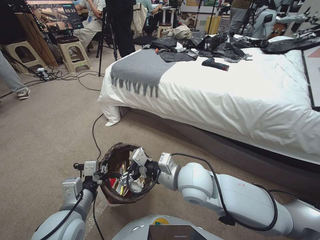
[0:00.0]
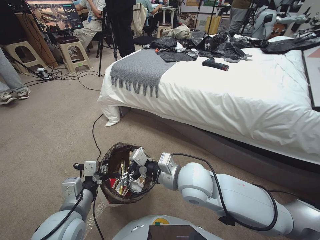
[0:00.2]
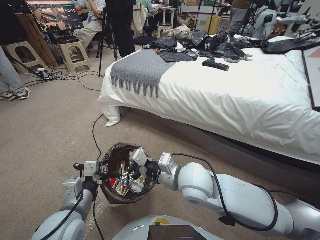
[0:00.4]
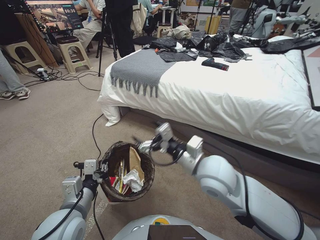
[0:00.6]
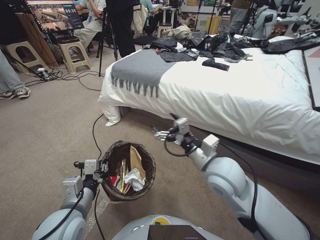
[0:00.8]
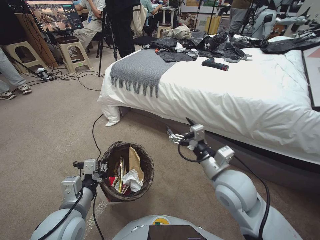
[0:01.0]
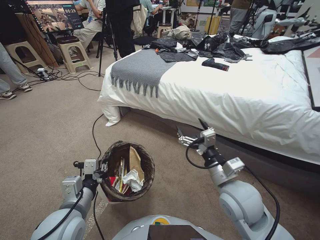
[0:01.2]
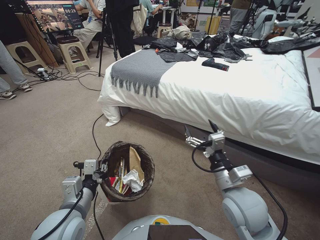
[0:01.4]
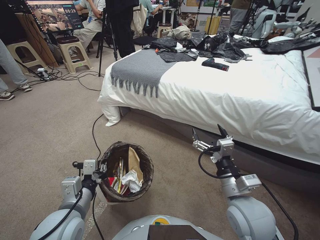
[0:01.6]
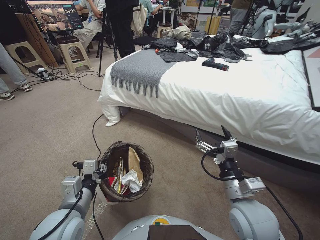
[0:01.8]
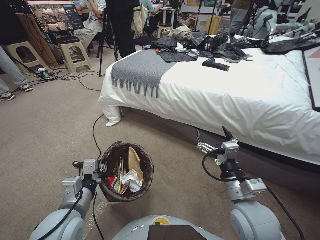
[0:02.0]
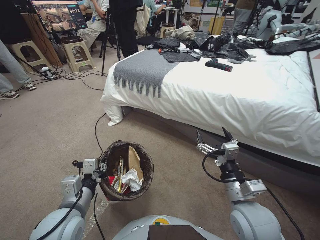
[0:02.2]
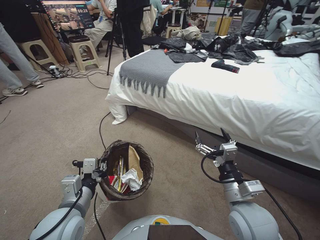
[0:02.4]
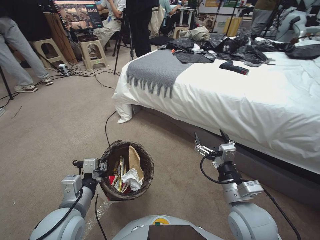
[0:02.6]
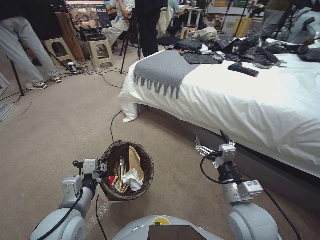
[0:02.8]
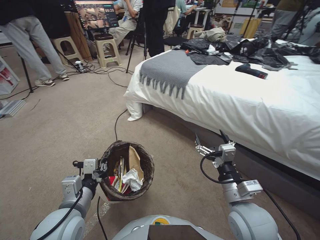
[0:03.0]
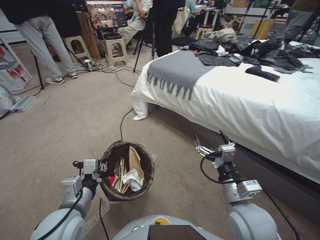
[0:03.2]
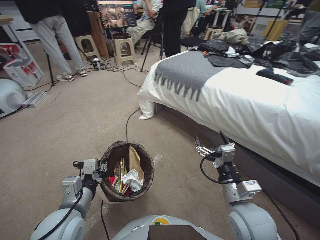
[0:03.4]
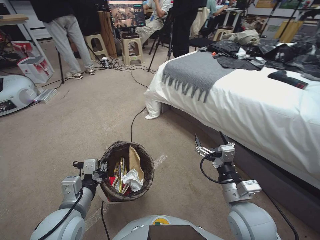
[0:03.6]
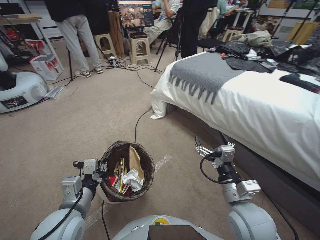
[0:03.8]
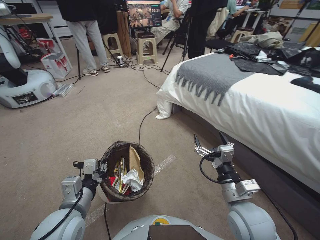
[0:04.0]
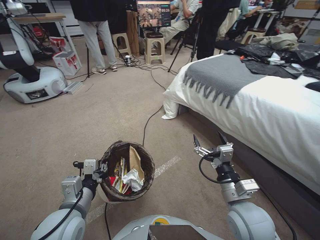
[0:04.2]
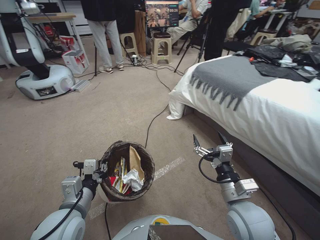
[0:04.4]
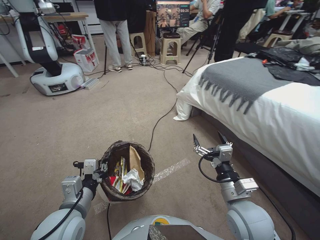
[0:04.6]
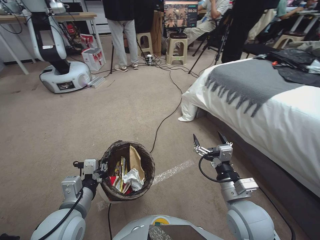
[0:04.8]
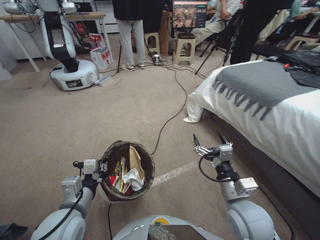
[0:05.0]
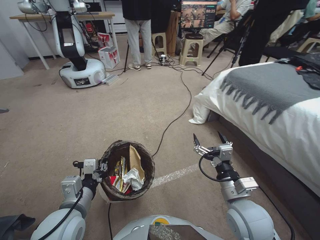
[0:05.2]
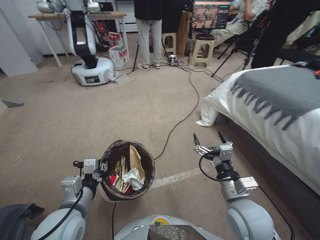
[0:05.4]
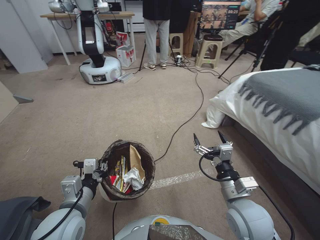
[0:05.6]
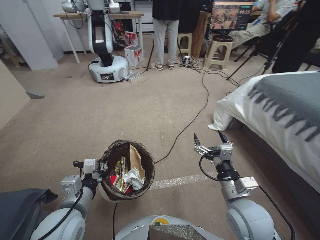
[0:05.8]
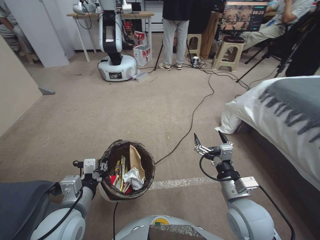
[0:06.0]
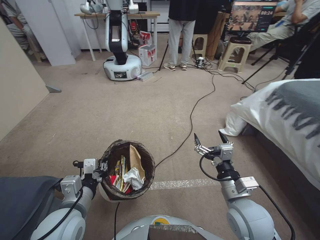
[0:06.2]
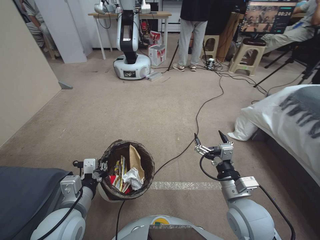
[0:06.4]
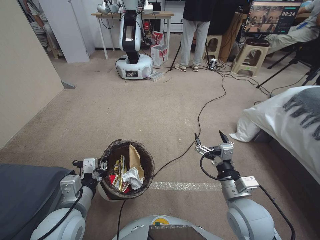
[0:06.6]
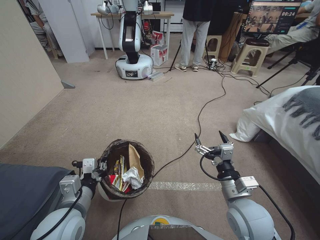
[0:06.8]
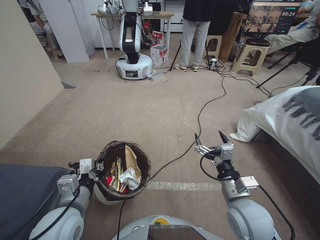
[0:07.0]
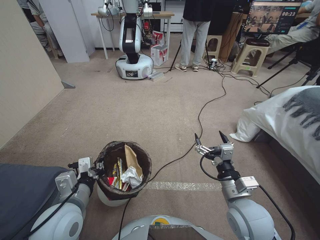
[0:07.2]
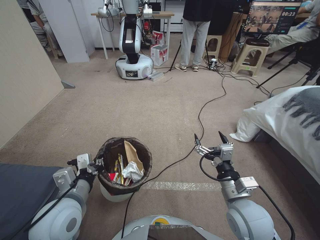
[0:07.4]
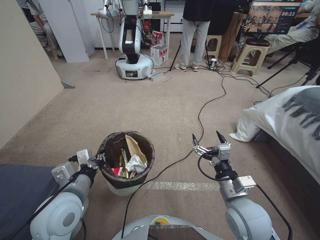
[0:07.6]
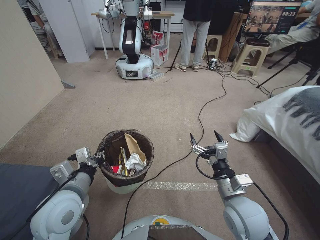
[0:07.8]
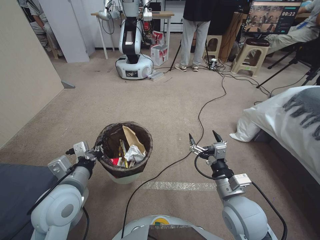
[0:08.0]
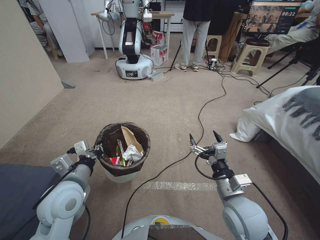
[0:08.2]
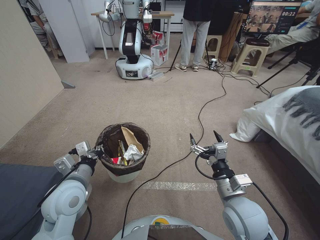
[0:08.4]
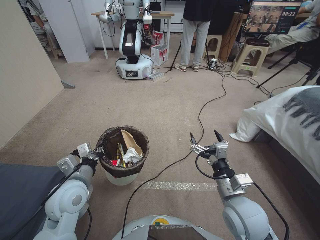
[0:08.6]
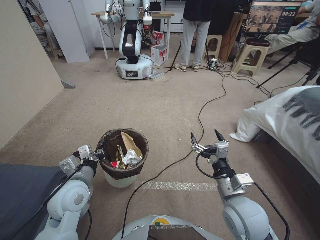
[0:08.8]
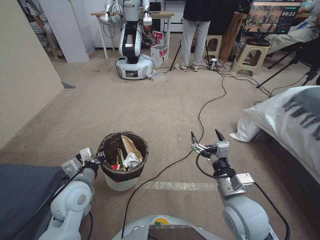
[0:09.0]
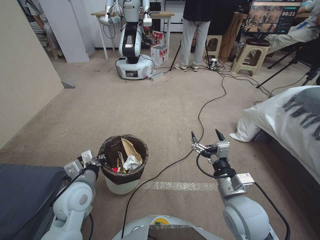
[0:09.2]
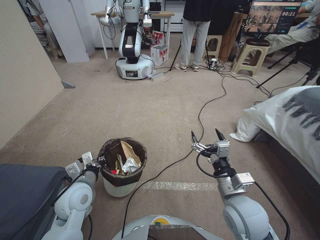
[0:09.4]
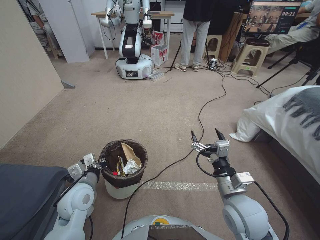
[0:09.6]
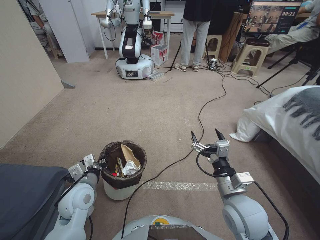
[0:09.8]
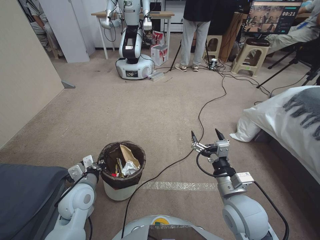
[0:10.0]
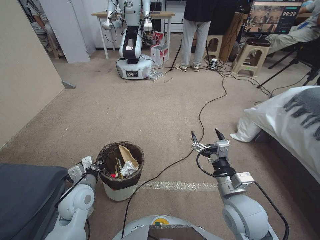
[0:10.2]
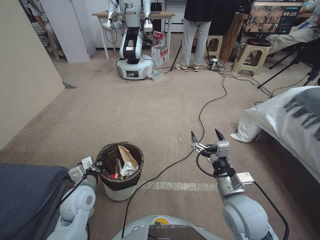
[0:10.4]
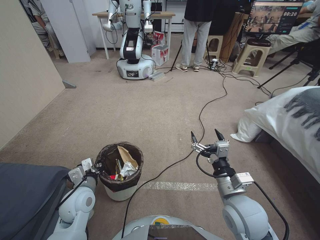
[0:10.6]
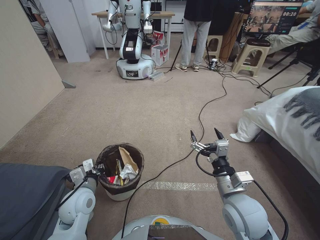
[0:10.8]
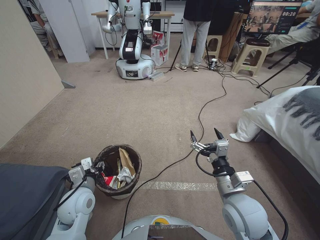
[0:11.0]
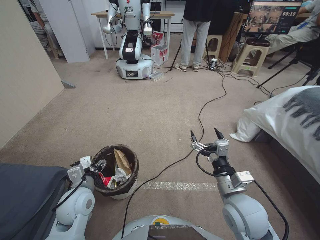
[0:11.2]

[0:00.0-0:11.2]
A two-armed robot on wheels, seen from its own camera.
Task of the whole recording: Pick up the trash bin, then pick up the garbage from the floor and place it into the trash bin.
0:00.0 to 0:01.6: The right gripper travels to the right and backward by some 15 cm.
0:06.4 to 0:08.0: The left gripper moves roughly 5 cm.
0:08.0 to 0:09.6: The left gripper moves downward, about 10 cm.
0:09.6 to 0:11.2: The left gripper opens up.

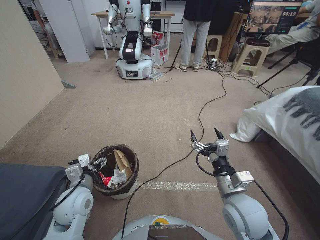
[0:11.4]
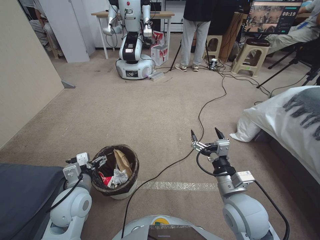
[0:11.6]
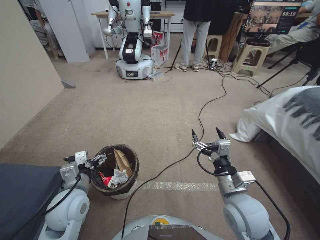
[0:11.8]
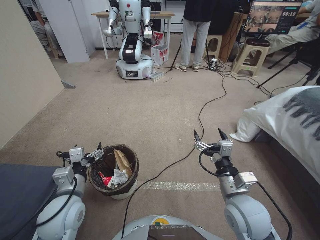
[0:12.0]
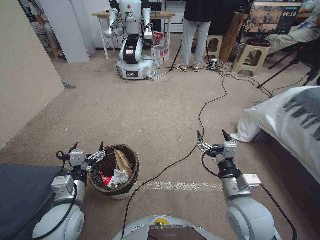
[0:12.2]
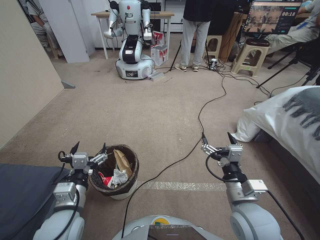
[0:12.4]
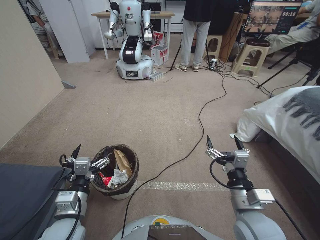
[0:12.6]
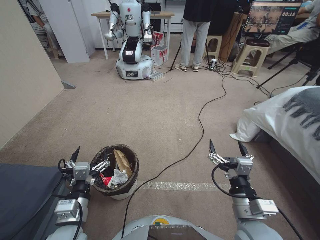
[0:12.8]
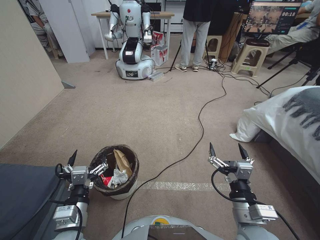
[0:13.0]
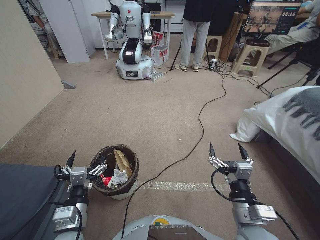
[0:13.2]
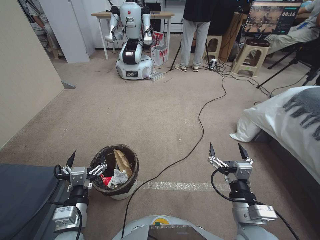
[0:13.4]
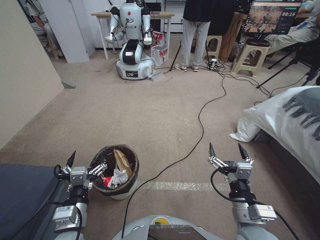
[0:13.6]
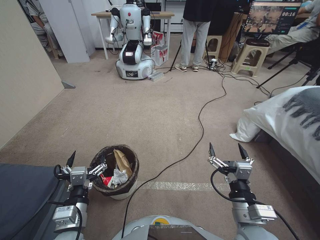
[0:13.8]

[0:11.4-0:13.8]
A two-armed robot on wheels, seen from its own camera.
Task of the whole recording: Pick up the trash bin, then pick up the garbage from the floor and place it into the trash bin.
0:11.4 to 0:12.6: The left gripper heads backward, covering roughly 10 cm.
0:12.6 to 0:13.8: The grippers make only small movements.
